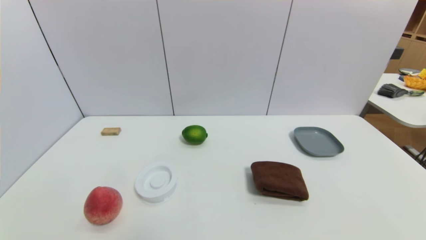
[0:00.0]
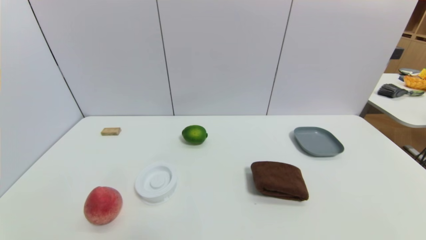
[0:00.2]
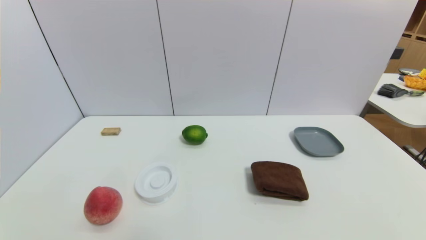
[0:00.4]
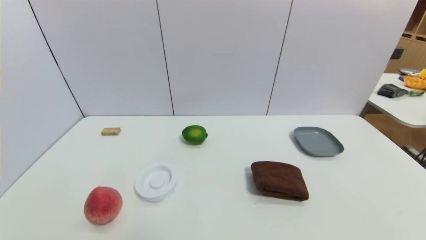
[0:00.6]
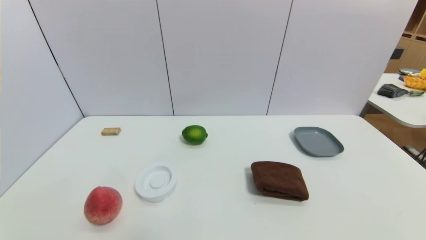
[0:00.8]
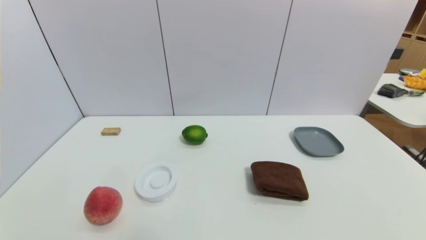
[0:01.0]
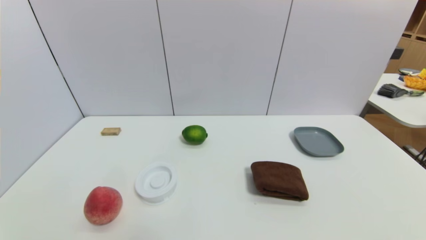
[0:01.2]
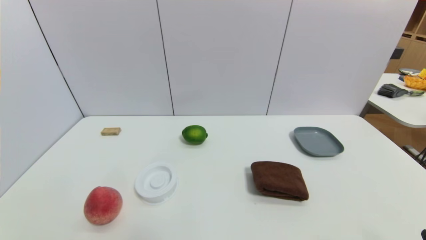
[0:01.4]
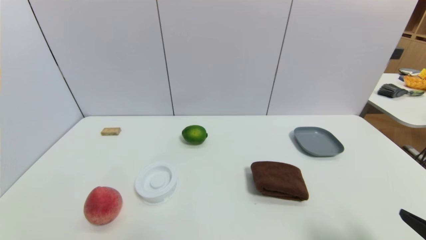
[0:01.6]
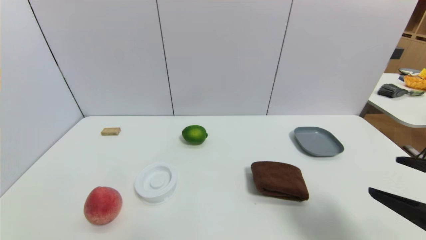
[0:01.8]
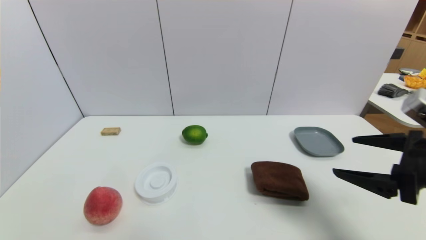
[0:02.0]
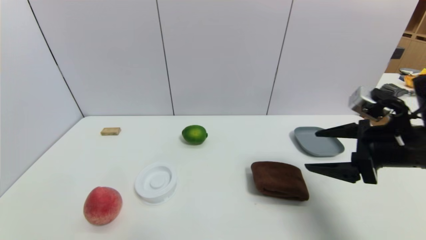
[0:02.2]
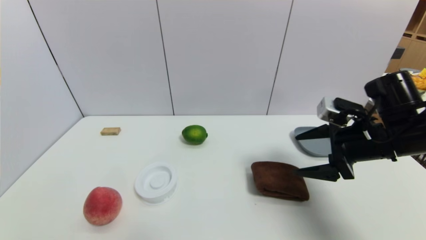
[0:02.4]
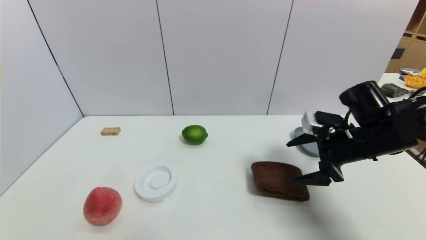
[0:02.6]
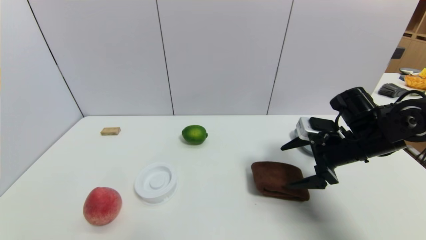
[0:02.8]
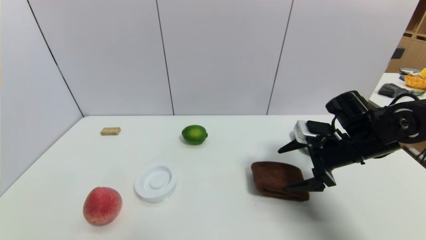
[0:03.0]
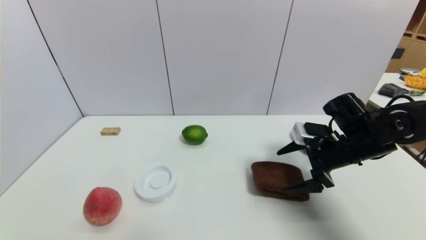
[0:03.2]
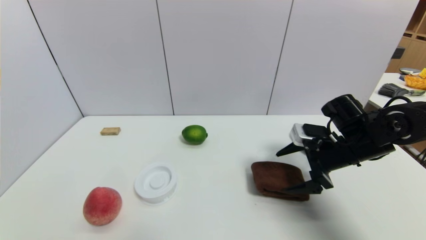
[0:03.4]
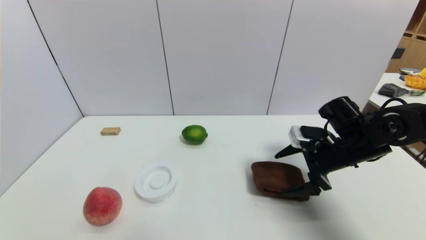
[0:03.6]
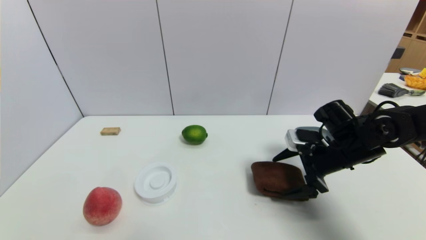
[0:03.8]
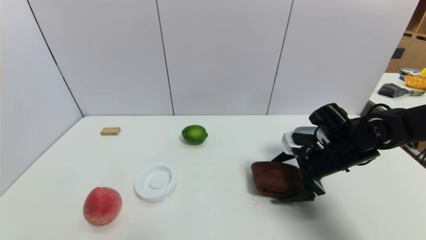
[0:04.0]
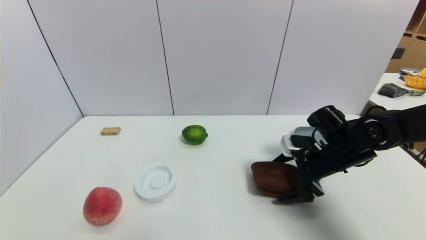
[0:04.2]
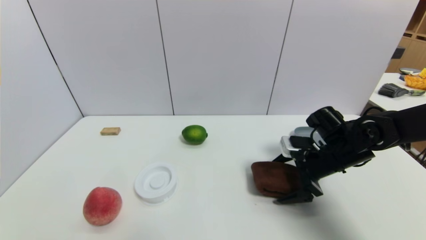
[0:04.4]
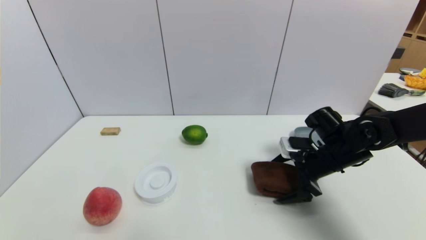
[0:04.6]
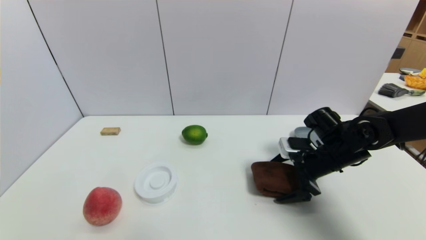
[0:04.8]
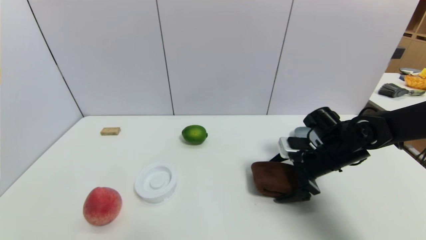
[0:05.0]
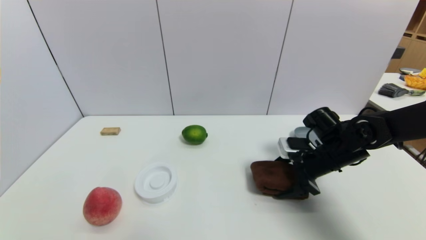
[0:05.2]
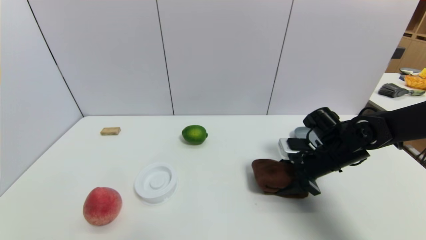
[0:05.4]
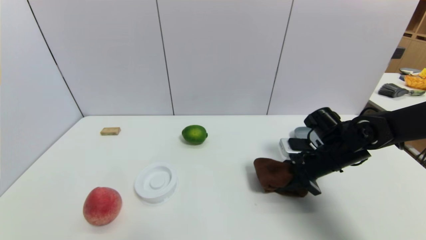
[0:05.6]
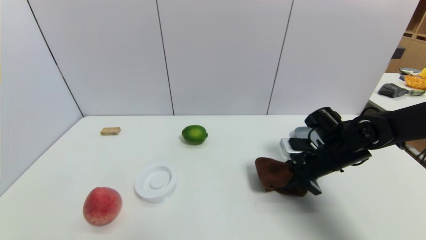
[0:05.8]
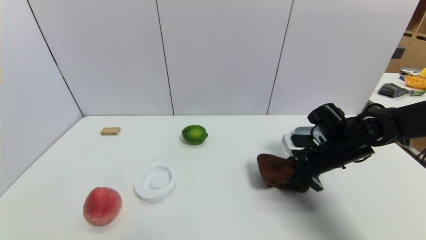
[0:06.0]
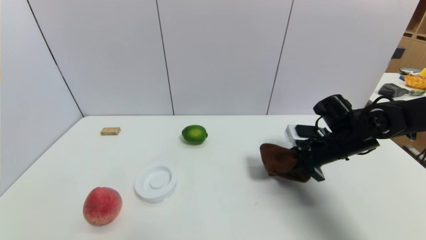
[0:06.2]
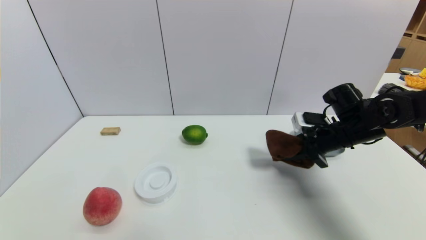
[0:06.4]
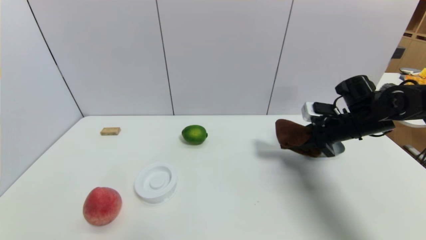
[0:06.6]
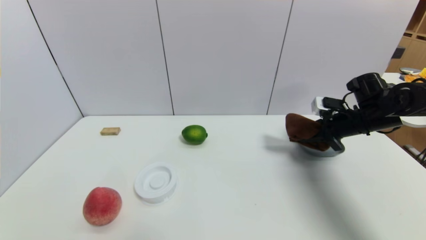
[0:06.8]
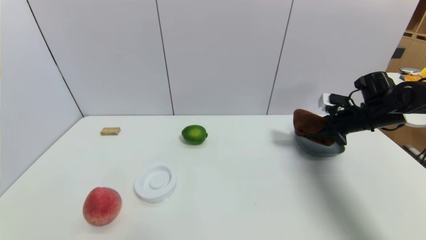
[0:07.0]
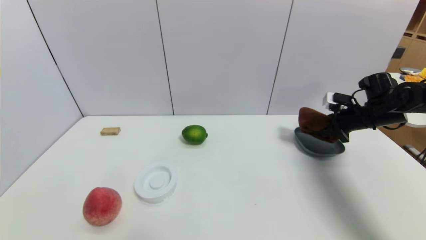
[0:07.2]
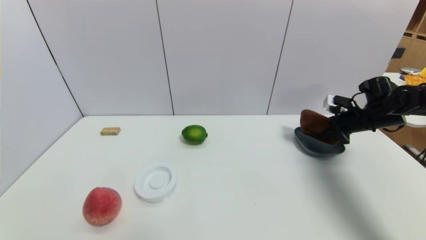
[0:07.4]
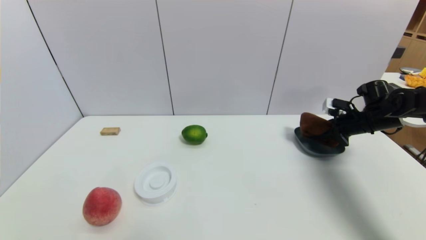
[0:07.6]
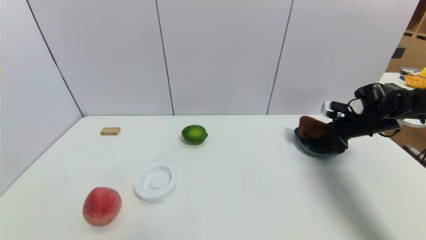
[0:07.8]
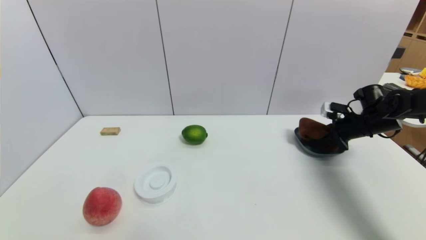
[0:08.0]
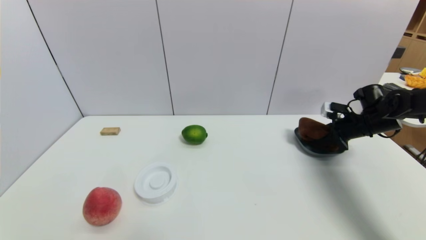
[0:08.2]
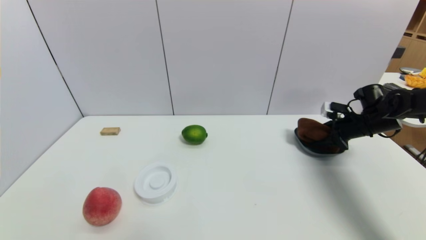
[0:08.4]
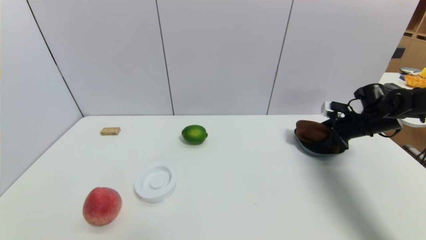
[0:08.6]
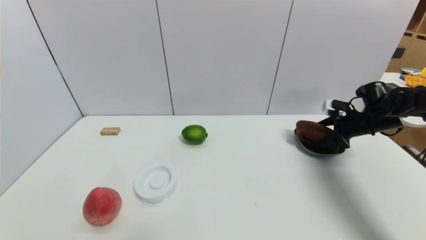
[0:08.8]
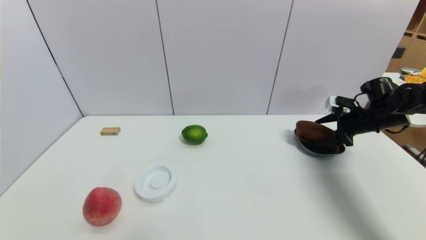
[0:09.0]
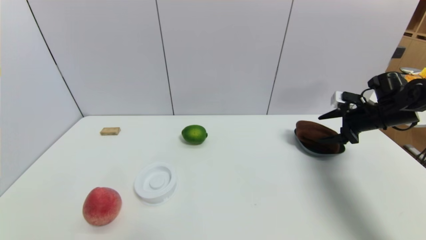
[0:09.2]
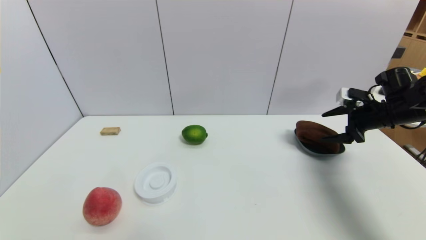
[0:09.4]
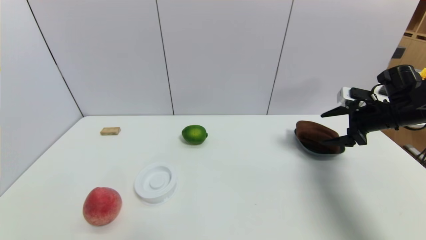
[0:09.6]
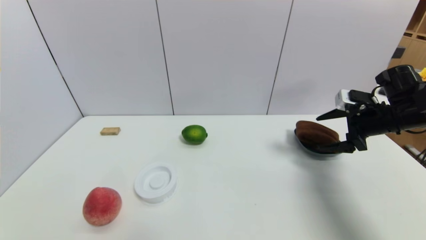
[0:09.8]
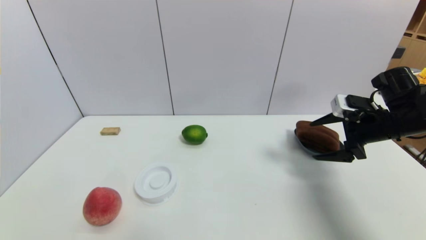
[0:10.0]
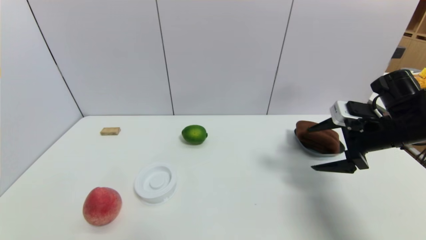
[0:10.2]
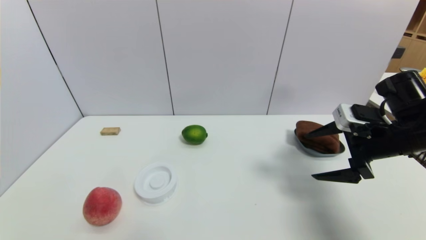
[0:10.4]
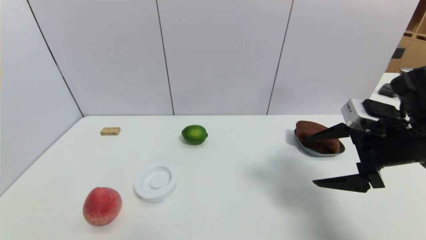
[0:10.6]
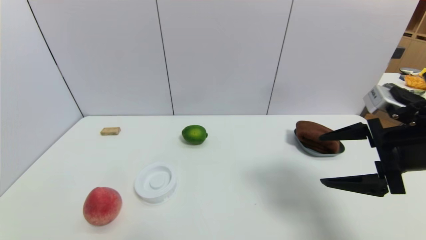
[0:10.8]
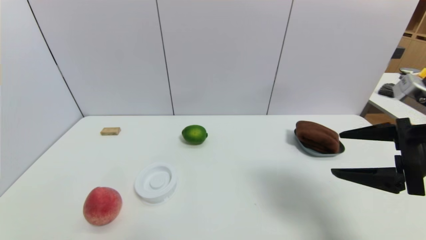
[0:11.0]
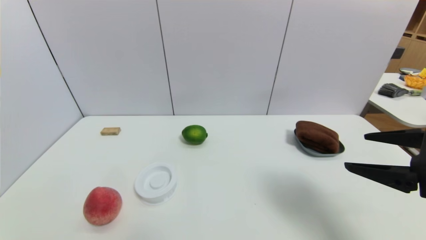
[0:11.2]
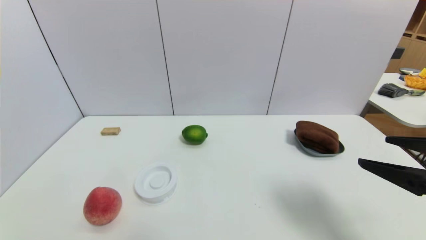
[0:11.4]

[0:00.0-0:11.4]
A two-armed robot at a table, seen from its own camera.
Task of the whole recording: use a gripper to pick the target object and place on the dish.
Step, 0.0 to 6.0 s: Grasp the brown towel with the right gripper.
Step, 6.2 to 10.0 s: Place the brown towel on the dish with the right gripper.
1.4 to 2.8 s: The right gripper is displaced forward by some 30 cm.
2.8 to 4.2 s: The grippers stay close to where they were, moving slightly.
4.2 to 5.6 s: The right gripper closes.
5.6 to 7.2 s: The right gripper shifts approximately 15 cm to the right and forward.
7.2 to 8.6 s: The right gripper opens.
8.6 to 10.0 s: The right gripper travels backward, to the left and upward by roughly 15 cm, and opens its fingers.
10.0 to 11.4 s: The right gripper shifts roughly 20 cm backward.

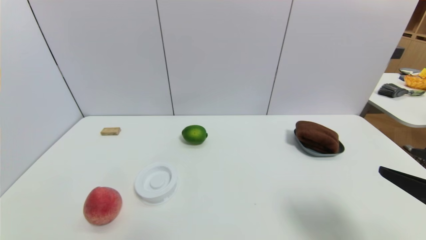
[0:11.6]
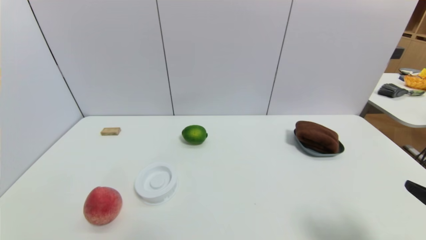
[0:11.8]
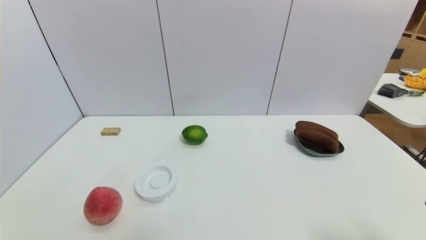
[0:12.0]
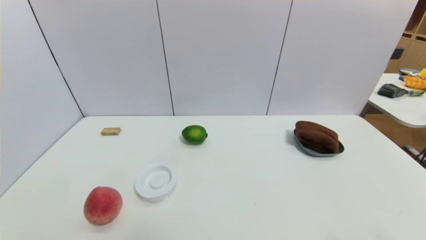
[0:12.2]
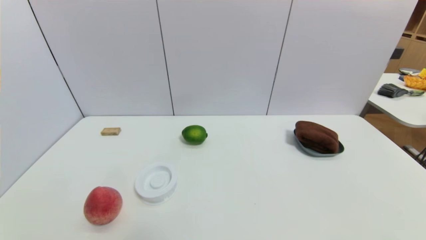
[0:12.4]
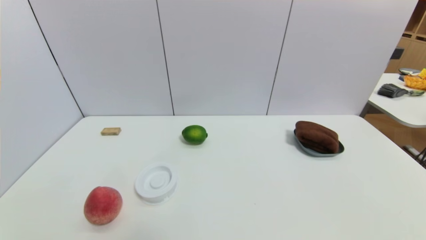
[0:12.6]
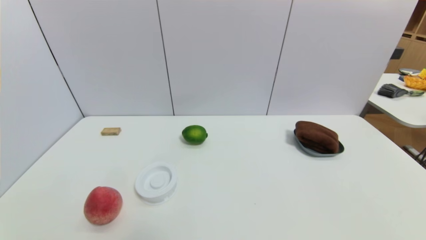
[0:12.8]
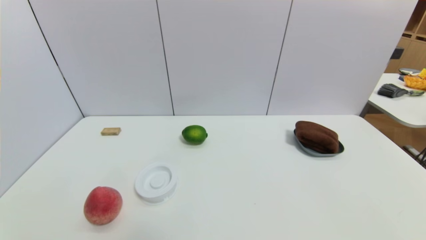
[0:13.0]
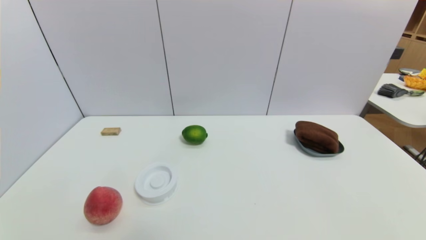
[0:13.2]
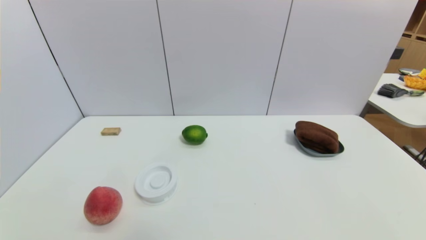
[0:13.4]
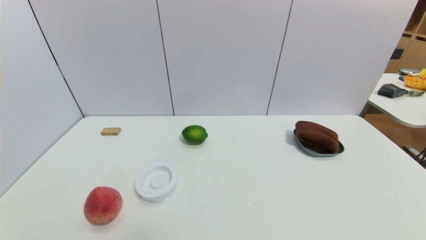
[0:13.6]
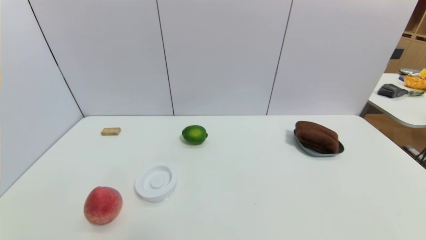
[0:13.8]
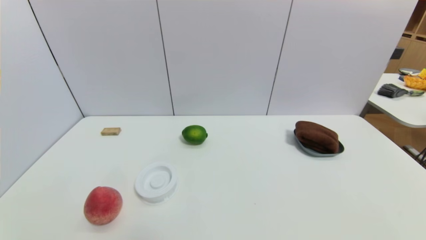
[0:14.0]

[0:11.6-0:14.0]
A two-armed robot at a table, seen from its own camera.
Task of the whole recording: use a gripper to pick the target object and place on the dish.
11.6 to 12.8 s: The right gripper travels downward and backward by about 15 cm.
12.8 to 14.0 s: Neither gripper changes place.

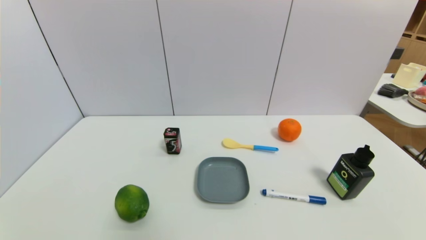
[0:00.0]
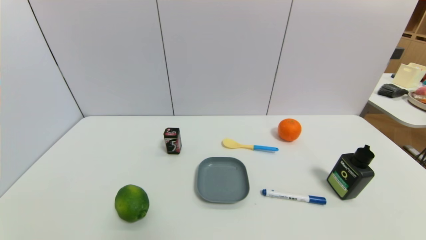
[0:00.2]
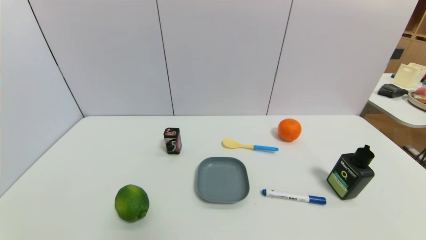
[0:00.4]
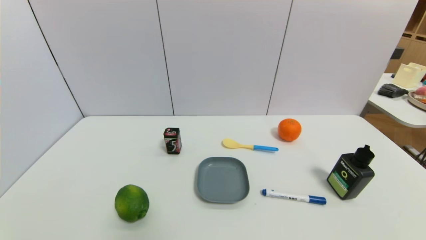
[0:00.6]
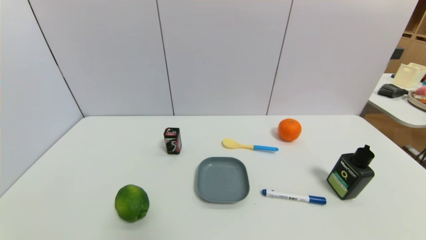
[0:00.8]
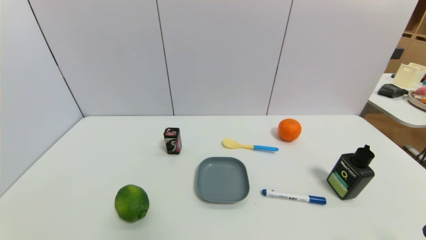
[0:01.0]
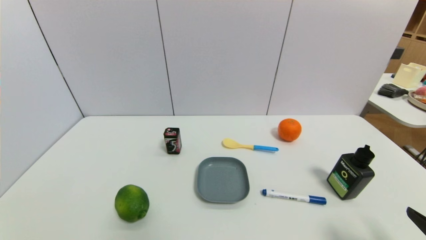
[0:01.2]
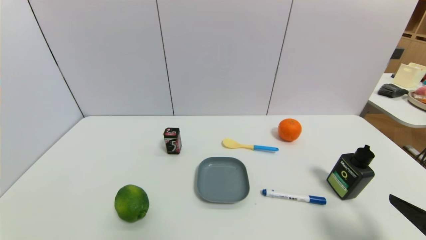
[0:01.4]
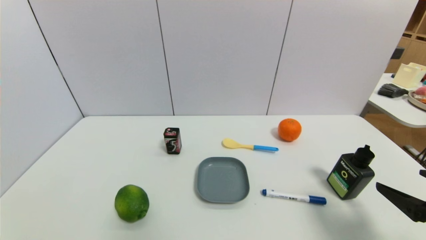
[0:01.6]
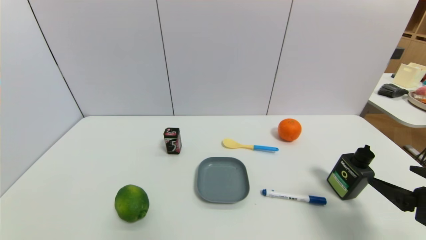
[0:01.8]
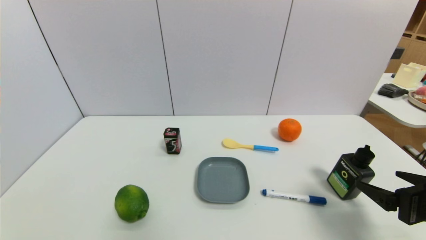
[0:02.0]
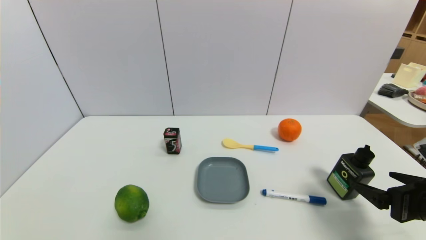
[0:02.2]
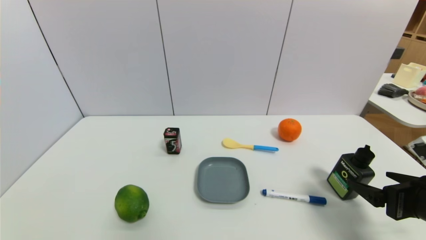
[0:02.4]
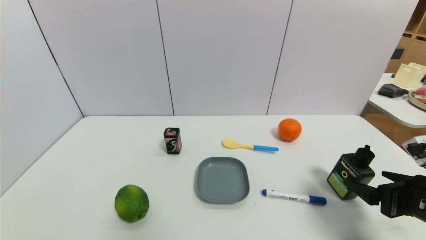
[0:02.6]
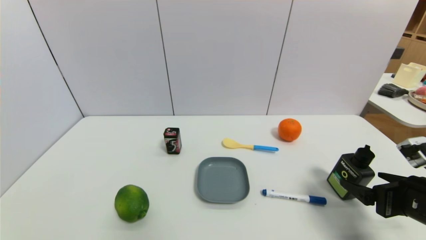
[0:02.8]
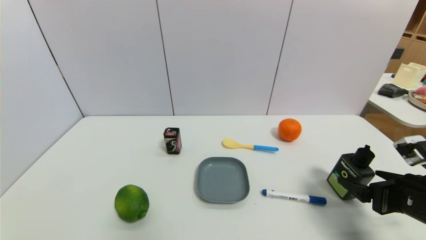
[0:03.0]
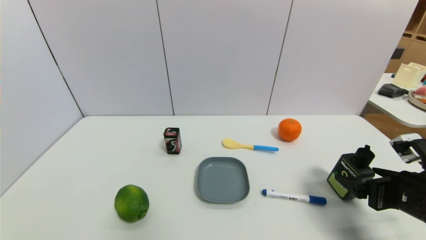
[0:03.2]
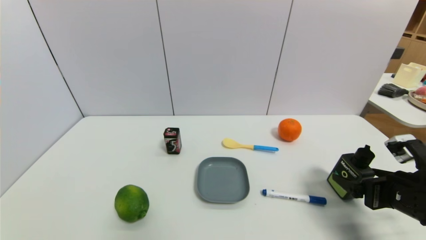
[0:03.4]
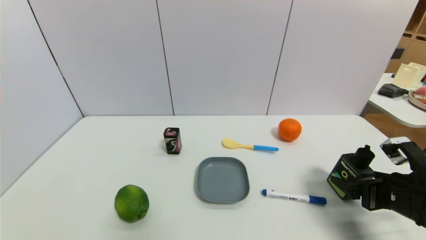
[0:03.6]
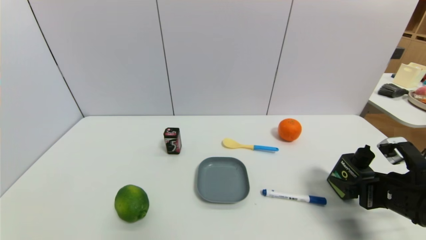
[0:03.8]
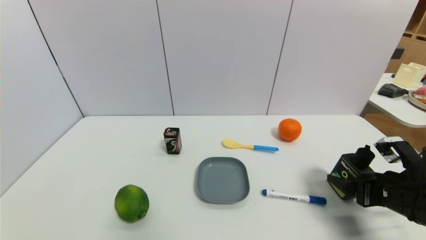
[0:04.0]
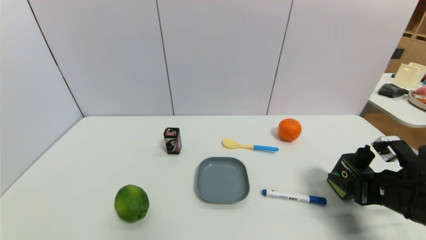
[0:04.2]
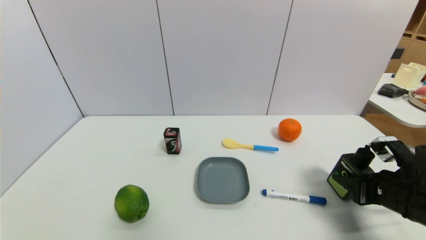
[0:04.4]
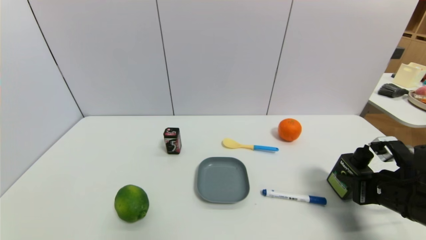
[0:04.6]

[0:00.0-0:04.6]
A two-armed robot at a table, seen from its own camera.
Task of the whole recording: use a gripper to pick the target object and place on the dish.
0.0 to 1.6 s: The right gripper moves forward and upward, about 15 cm.
1.6 to 3.0 s: The right gripper moves forward, some 5 cm.
3.0 to 4.6 s: The right gripper closes its fingers.
